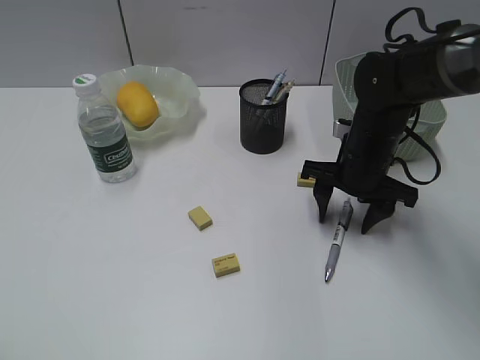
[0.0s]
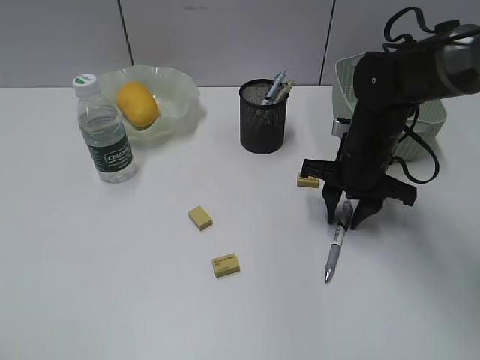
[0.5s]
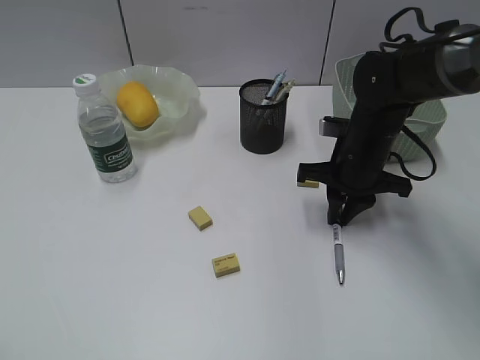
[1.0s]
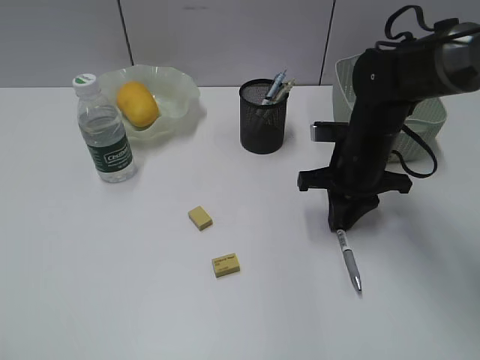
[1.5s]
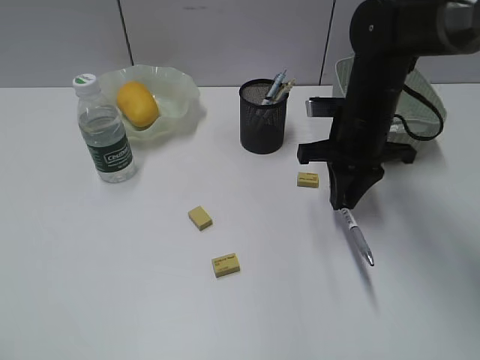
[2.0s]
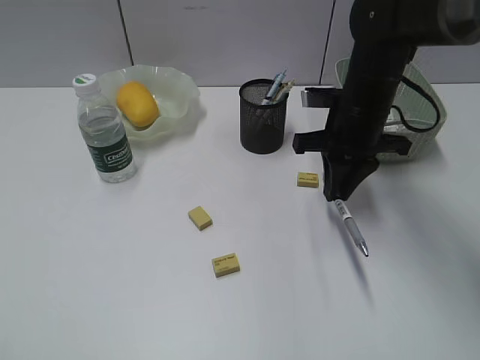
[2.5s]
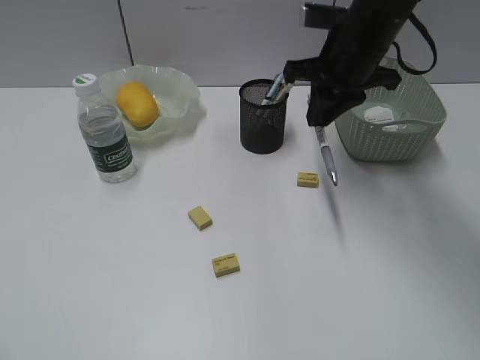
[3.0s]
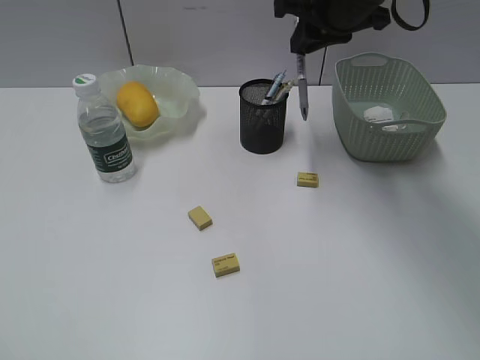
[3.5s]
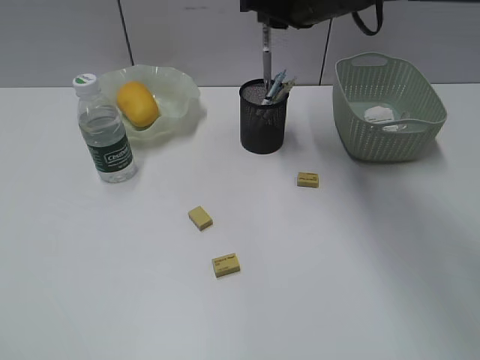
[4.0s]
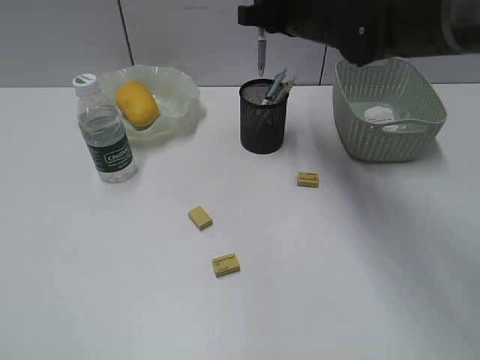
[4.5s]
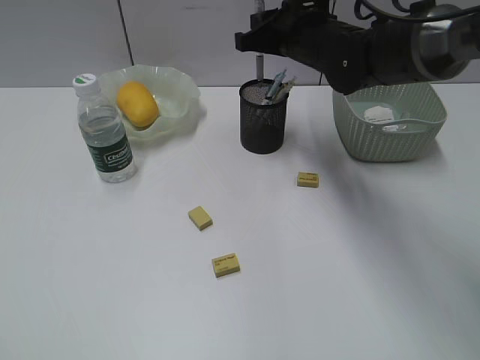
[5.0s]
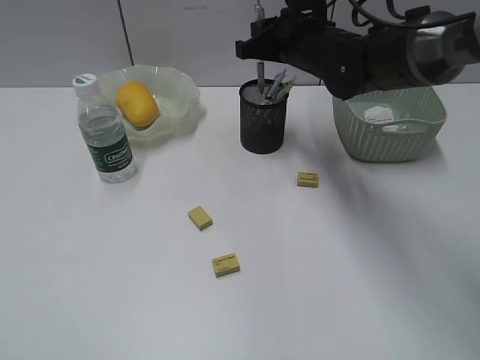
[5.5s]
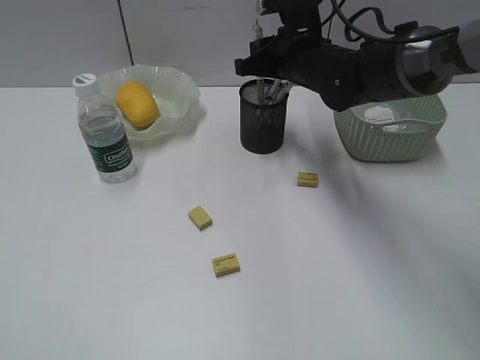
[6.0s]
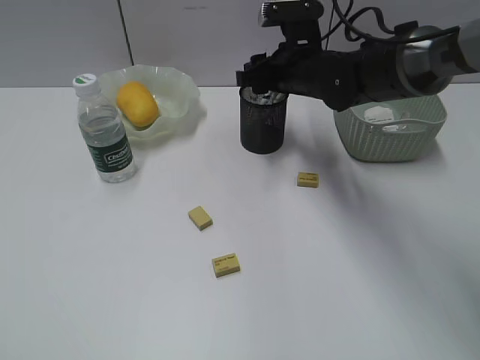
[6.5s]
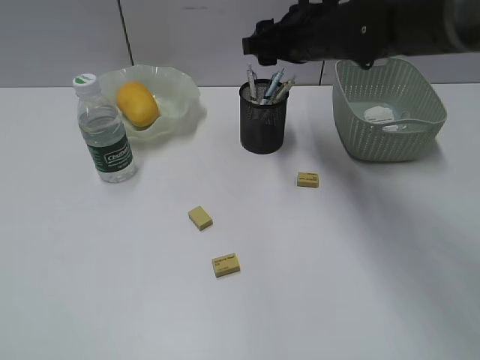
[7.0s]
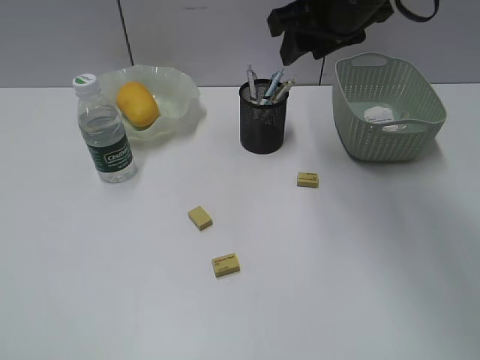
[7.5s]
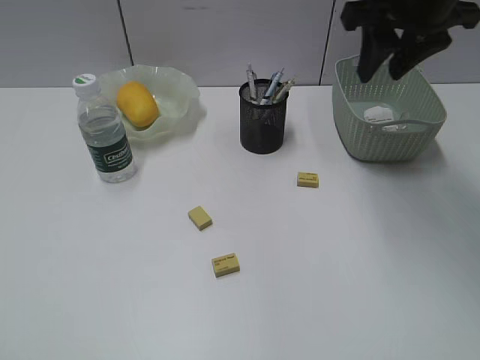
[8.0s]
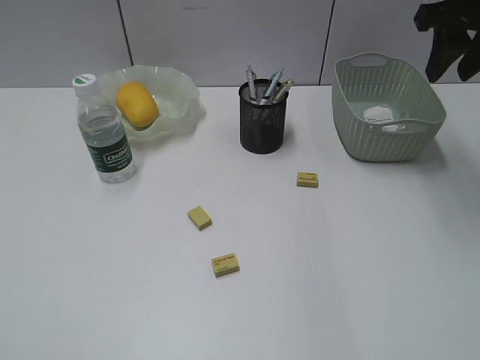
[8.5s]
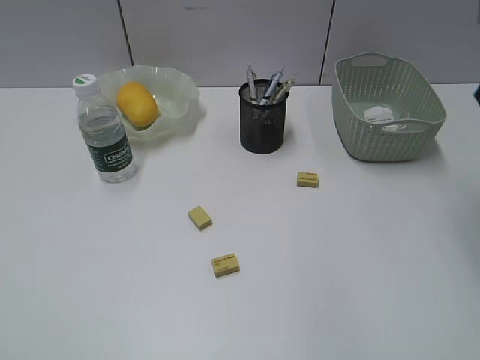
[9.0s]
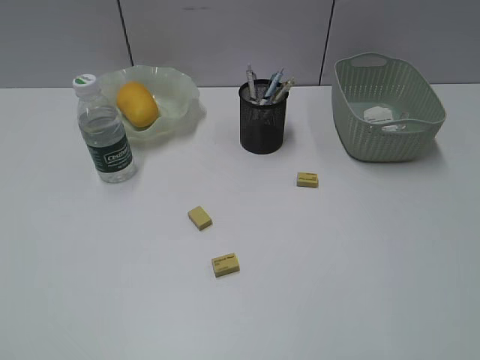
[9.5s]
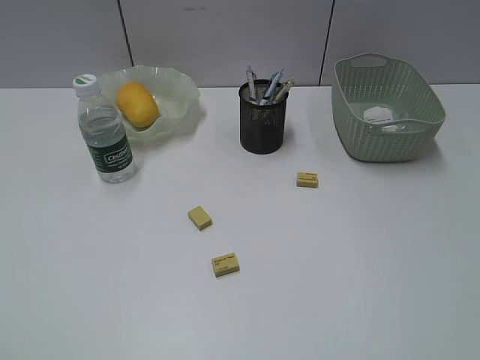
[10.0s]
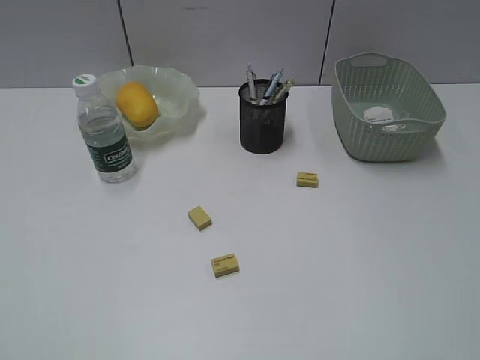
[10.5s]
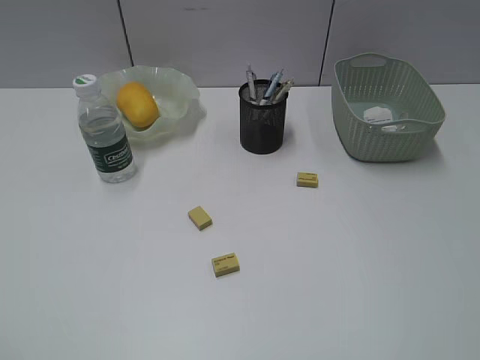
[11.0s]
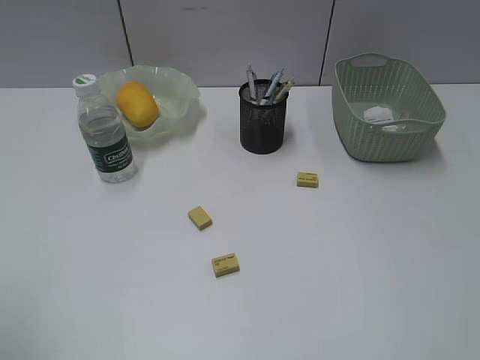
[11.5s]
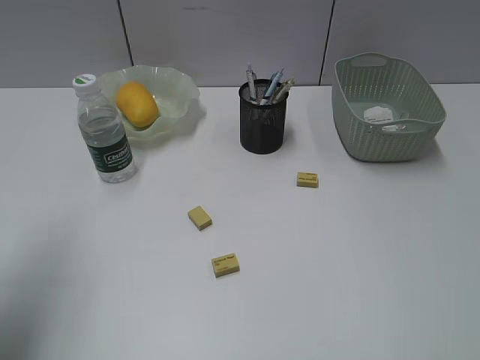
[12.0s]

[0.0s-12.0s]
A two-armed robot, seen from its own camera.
Step, 1.5s to 6.5s: Place the gray pen in pen holder with right gripper.
0.0s to 2.0s: The right gripper closes its fingers.
2.0s to 4.0s: The right gripper moves upward, to the left and forward, about 15 cm.
4.0s to 6.0s: The right gripper heads downward, covering approximately 10 cm.
6.0s to 8.0s: The right gripper moves upward, to the right and backward, roughly 15 cm, and opens up.
8.0s to 10.0s: The right gripper goes about 35 cm backward.
10.0s to 12.0s: The left gripper goes some 20 cm forward, and opens its fingers.

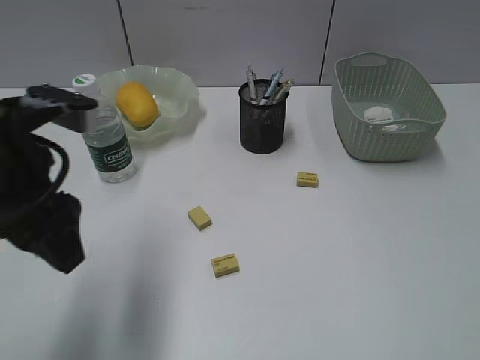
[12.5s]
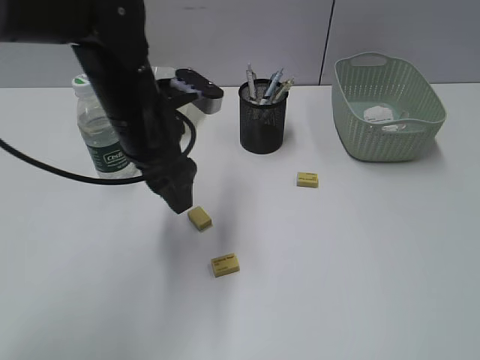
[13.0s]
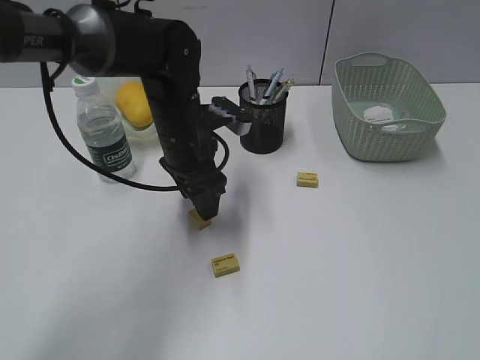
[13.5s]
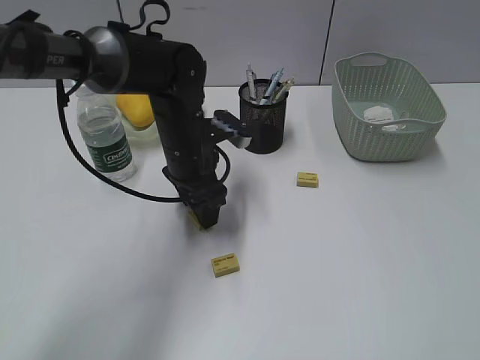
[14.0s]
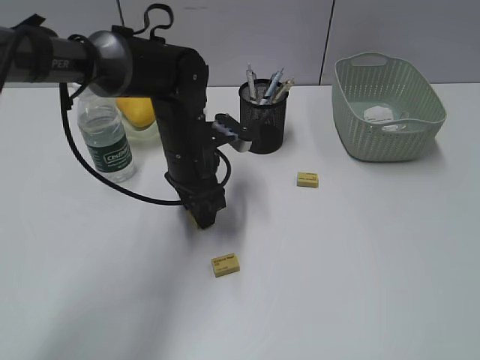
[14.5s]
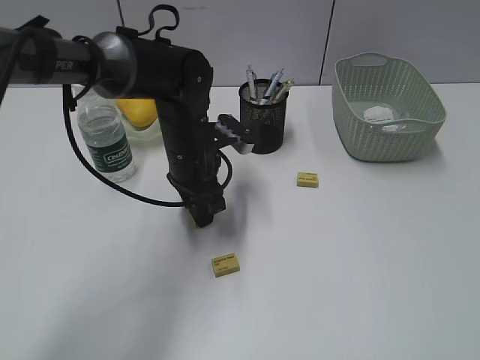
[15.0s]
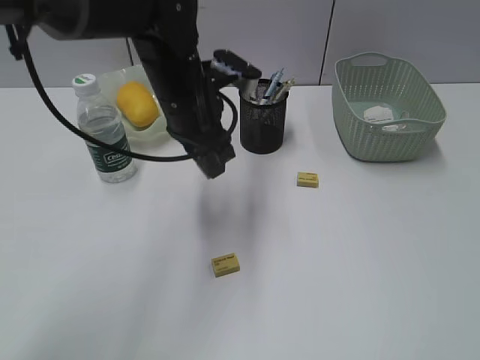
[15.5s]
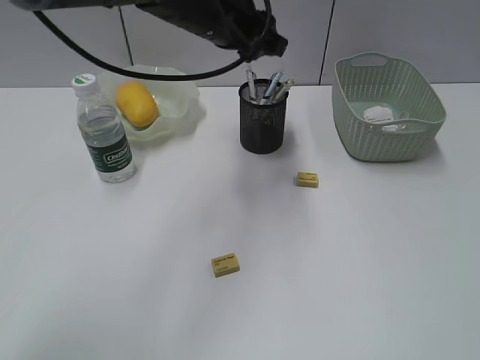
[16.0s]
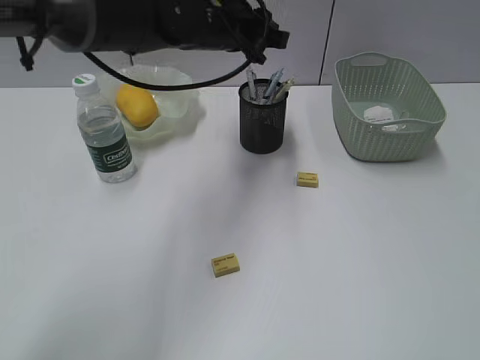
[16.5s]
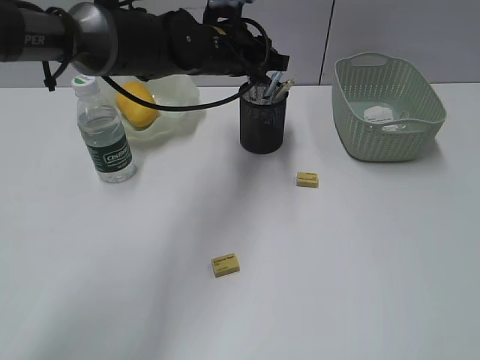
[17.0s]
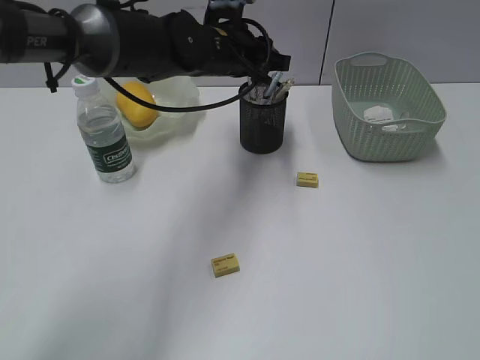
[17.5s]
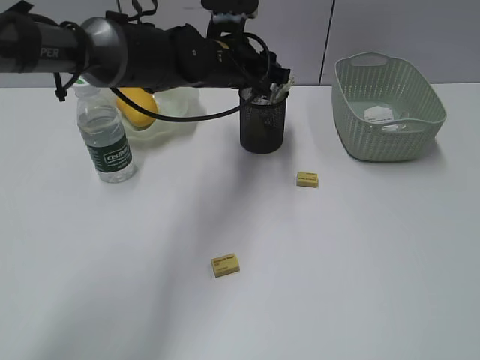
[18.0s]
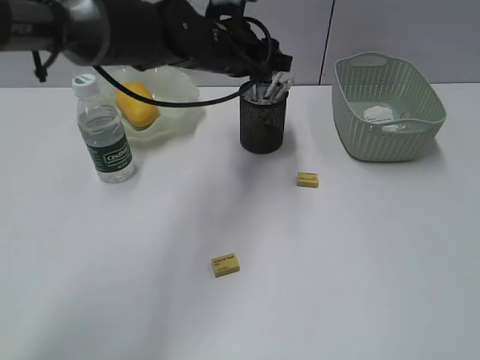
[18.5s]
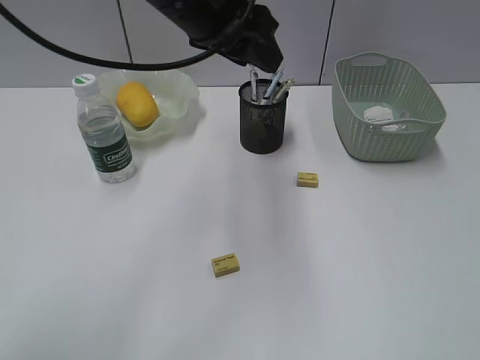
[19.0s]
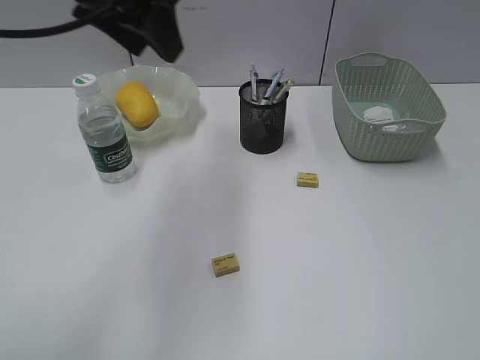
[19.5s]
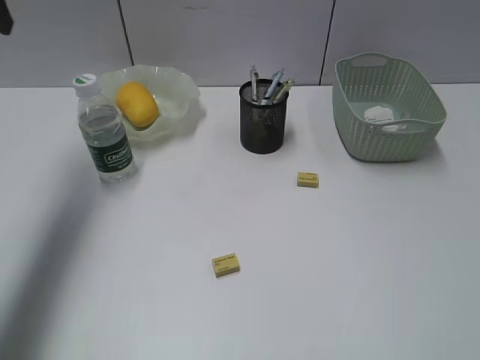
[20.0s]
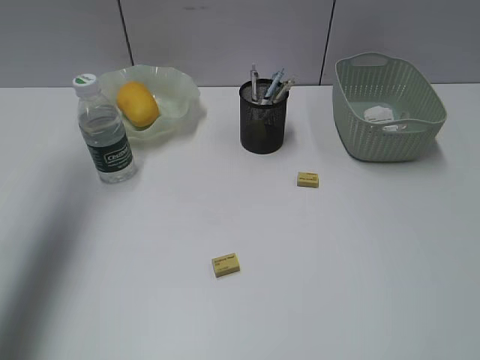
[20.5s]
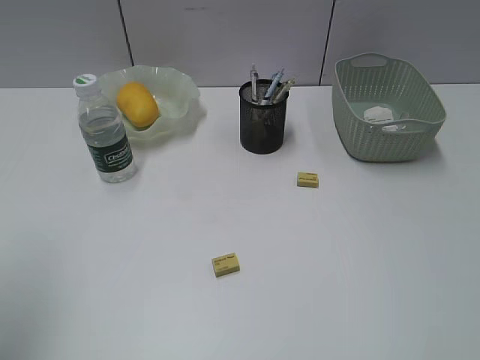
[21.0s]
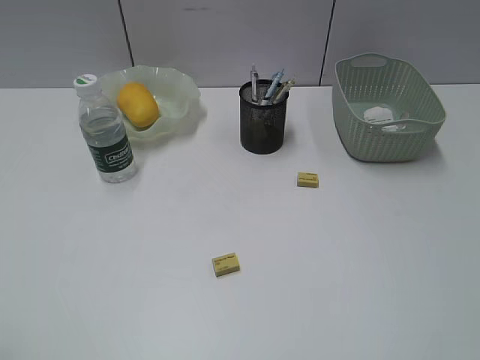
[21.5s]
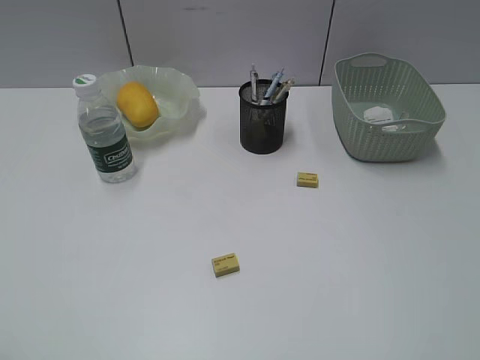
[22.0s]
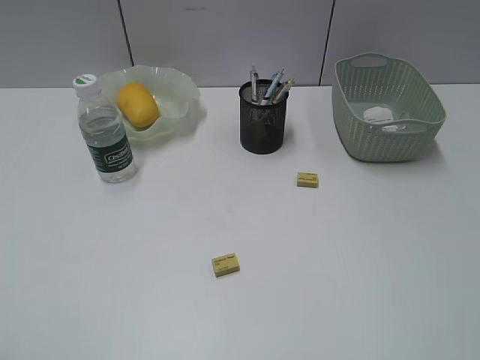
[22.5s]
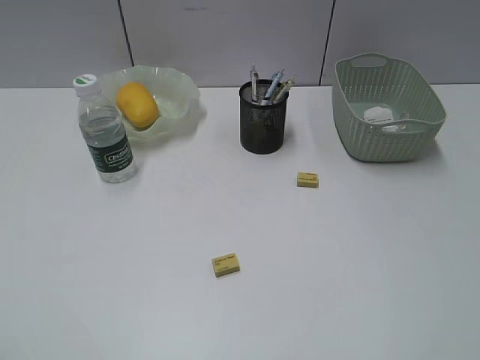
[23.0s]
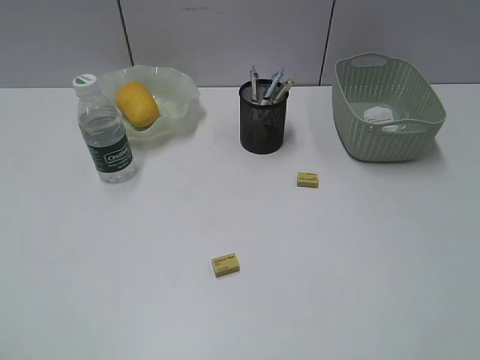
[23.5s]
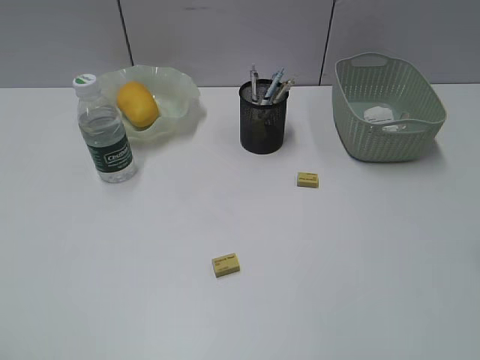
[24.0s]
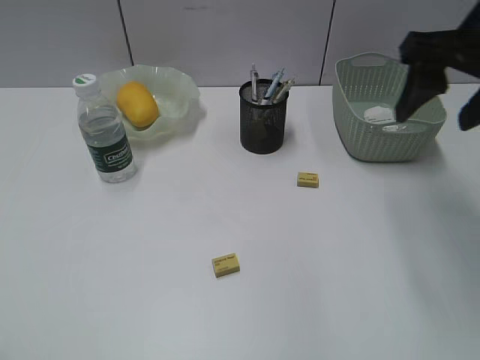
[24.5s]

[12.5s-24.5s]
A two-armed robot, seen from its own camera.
Step, 12.5s to 15.0s: Grasp the eraser with left gripper.
Step, 15.5s to 18.0s: Place the eraser in pen holder with left gripper.
12.5s to 14.5s: The left gripper heads forward, downward and to the right, covering approximately 25 cm.
14.5s to 16.5s: The left gripper is displaced upward and forward by approximately 15 cm.
16.5s to 18.5s: The grippers move only a little.
18.5s to 20.5s: The left gripper is displaced to the left and upward by approximately 30 cm.
20.5s to 22.5s: The left gripper heads backward, covering about 35 cm.
22.5s to 24.5s: The right gripper moves forward, approximately 30 cm, and opens its fingers.

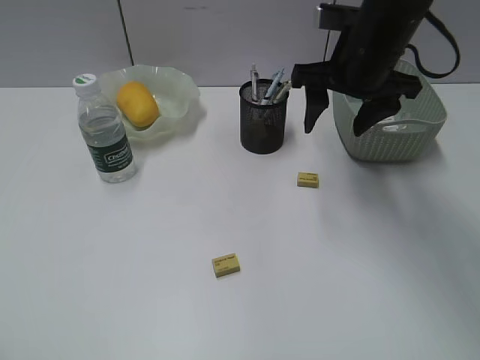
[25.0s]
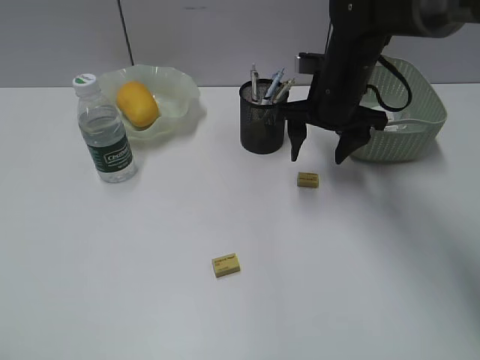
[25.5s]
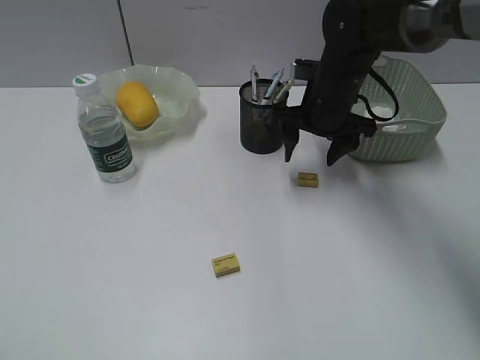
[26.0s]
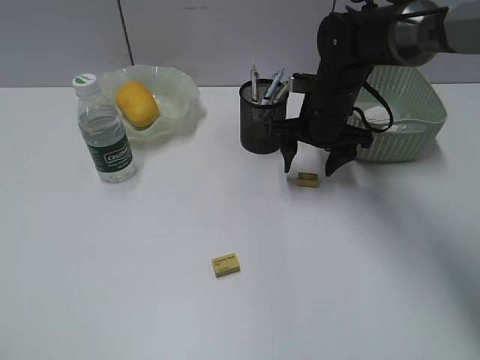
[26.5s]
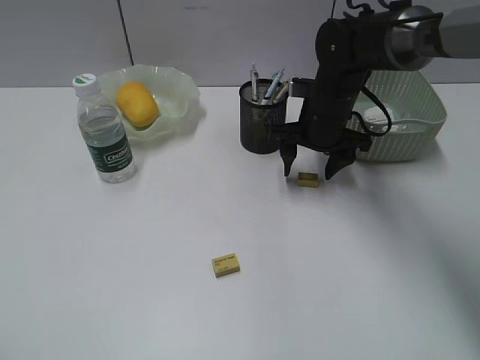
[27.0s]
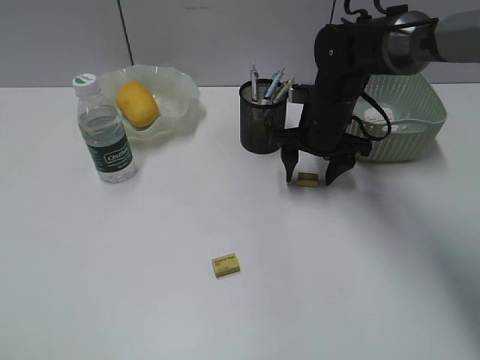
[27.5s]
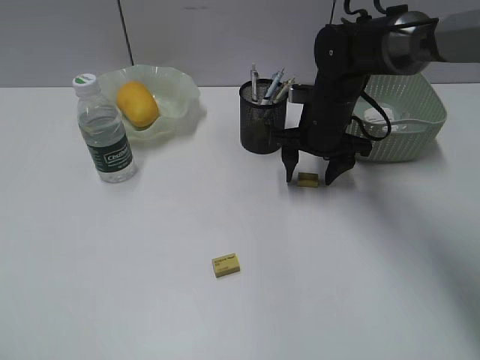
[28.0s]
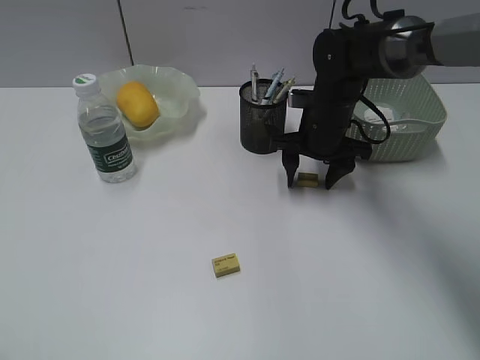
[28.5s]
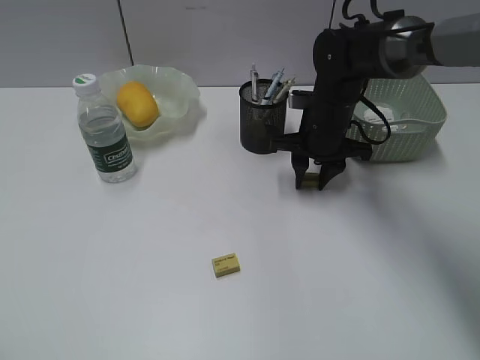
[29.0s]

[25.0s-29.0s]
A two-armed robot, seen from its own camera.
25.0s to 27.0s: The right gripper travels downward by approximately 10 cm.
27.0s to 29.0s: The right gripper closes up.
